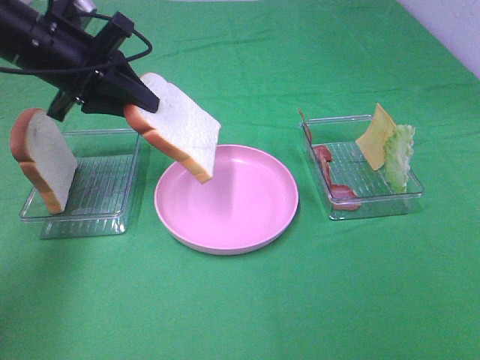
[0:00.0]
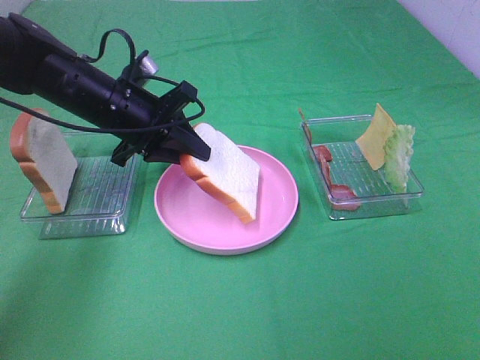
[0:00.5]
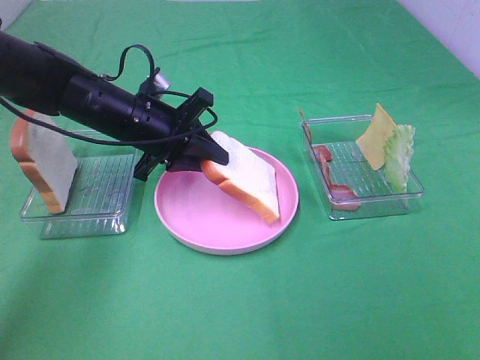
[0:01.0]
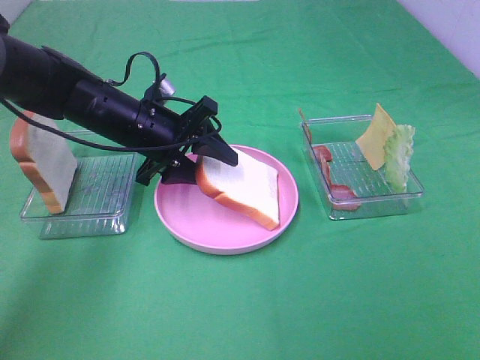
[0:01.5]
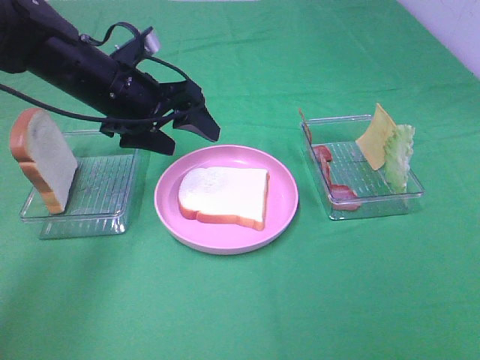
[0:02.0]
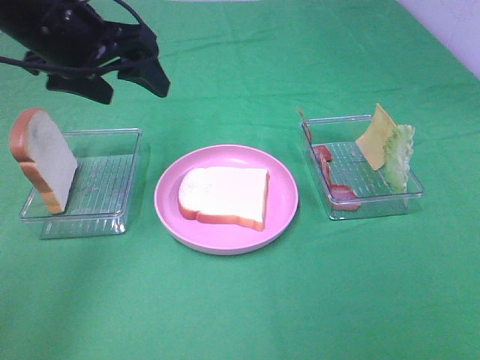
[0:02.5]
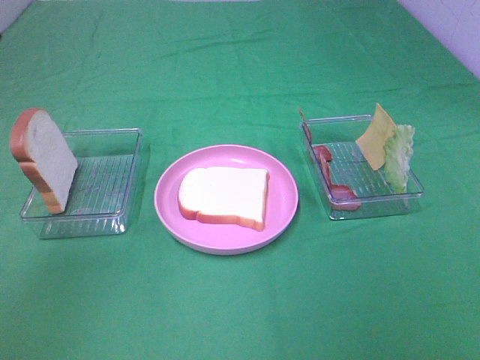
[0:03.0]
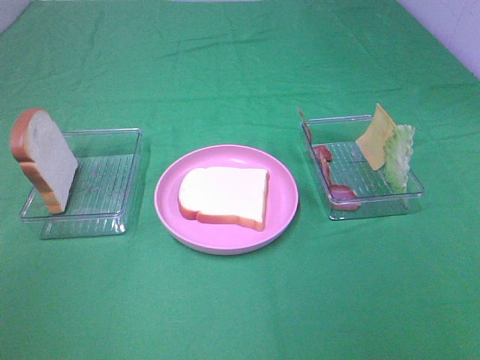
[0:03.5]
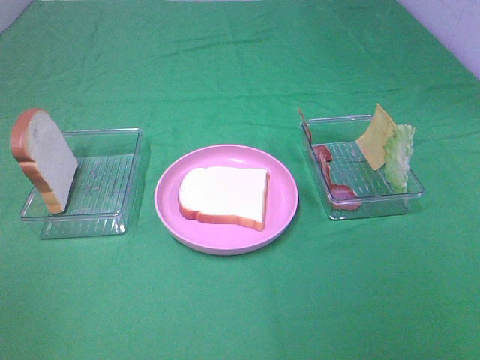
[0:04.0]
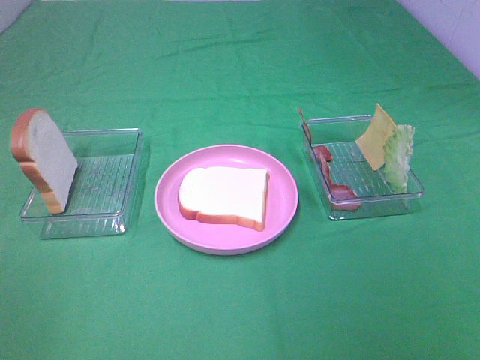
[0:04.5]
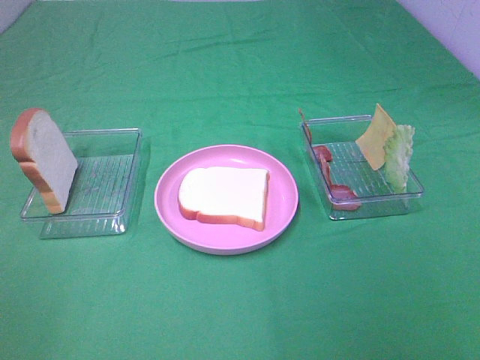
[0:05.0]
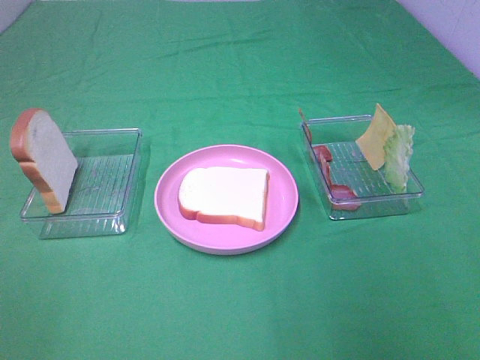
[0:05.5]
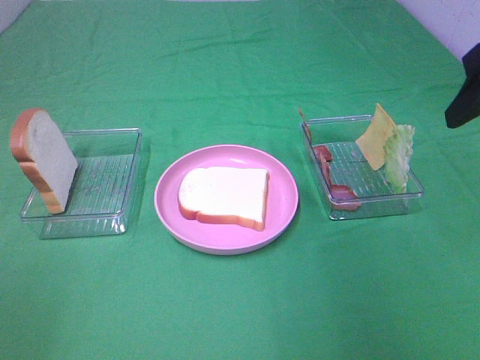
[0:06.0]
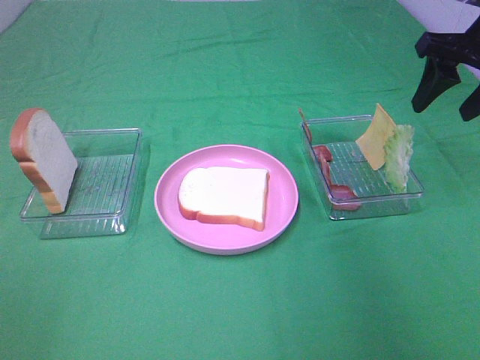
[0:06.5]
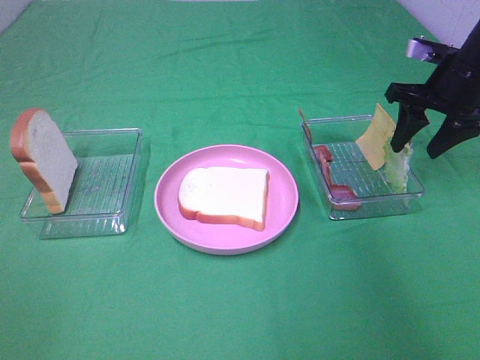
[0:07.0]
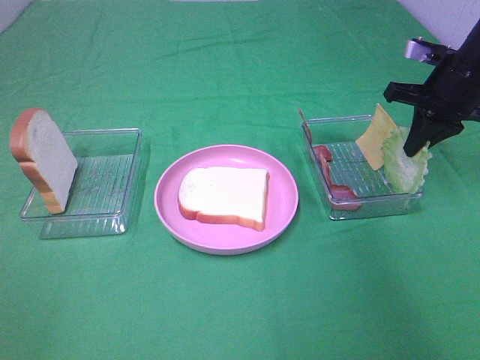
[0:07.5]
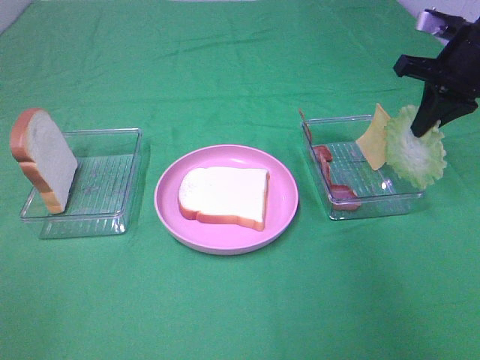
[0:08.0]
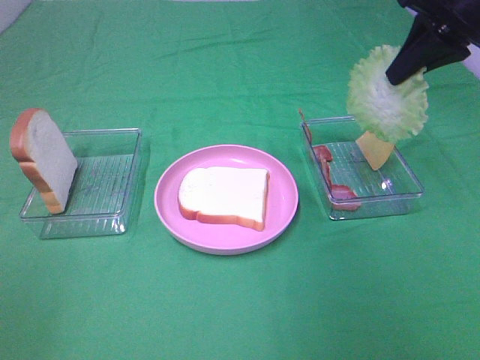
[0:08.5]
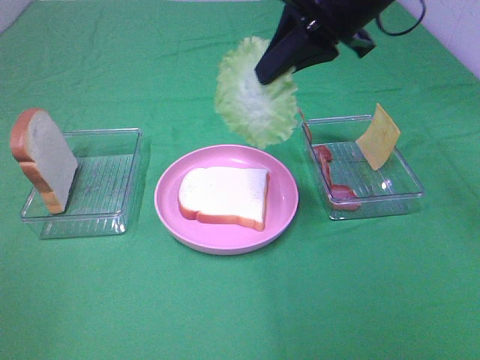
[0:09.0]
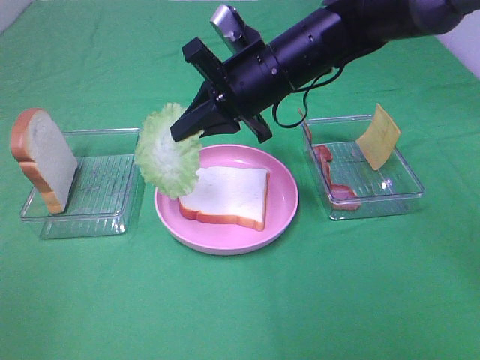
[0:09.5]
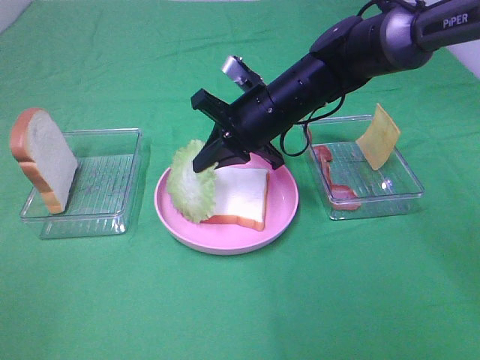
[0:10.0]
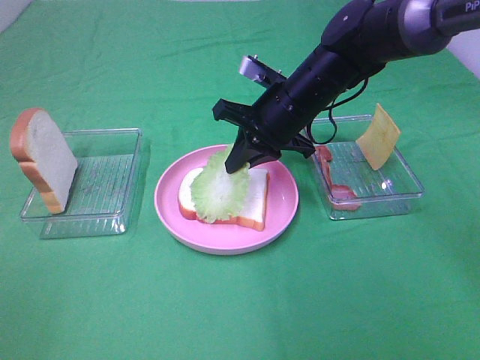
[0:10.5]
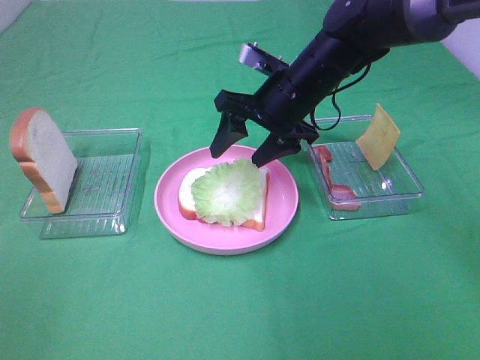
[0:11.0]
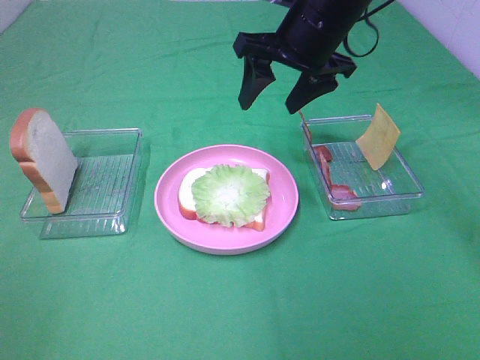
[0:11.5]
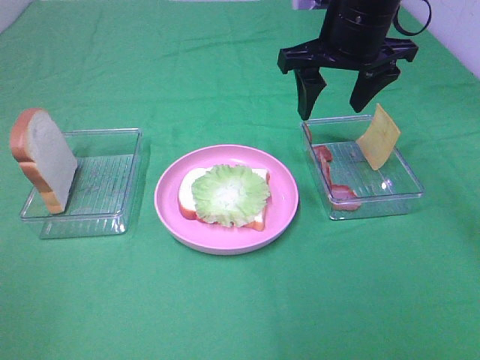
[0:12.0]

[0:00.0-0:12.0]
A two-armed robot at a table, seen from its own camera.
Task of the whole recording: Make sandwiches.
Step, 0.0 to 2.0 s: Left hand:place the bread slice on the plate.
Step, 2.5 to 7.5 s: Right hand:grab the lettuce slice.
Step, 8.0 to 11.0 s: Right hand:place the lettuce slice on the bread slice.
0.0 to 2.0 s: The left gripper heads to the right, covering approximately 5 cm, and opens.
2.0 to 4.0 s: The left gripper goes some 40 cm backward and to the left.
4.0 to 6.0 s: The right gripper is displaced forward by approximately 30 cm.
6.0 to 8.0 s: The right gripper moves forward and downward, approximately 15 cm, and closes.
8.0 to 10.0 s: The right gripper goes about 25 cm to the left and downward.
10.0 to 12.0 s: The right gripper heads upward and to the right, covering about 15 cm, and opens its fingers.

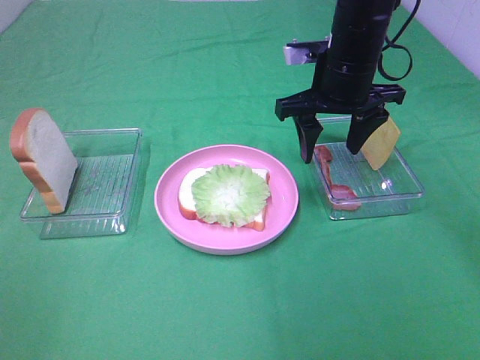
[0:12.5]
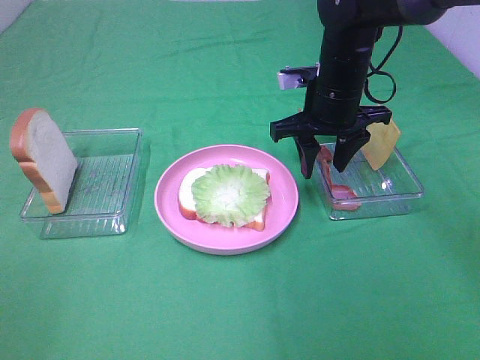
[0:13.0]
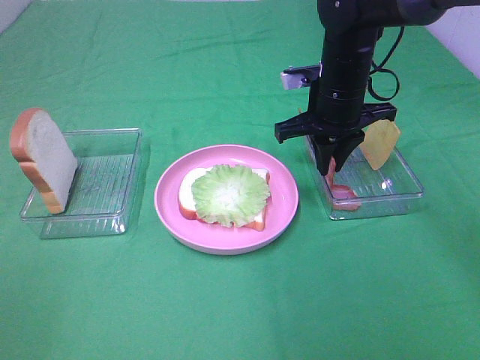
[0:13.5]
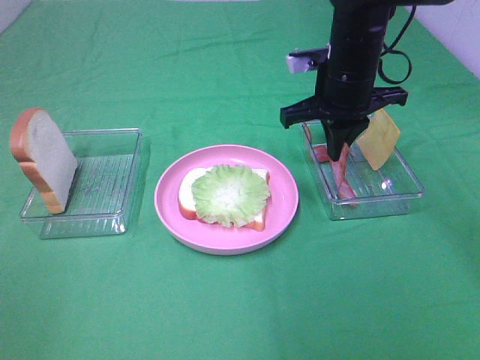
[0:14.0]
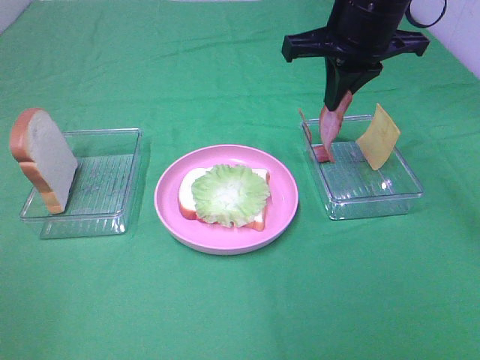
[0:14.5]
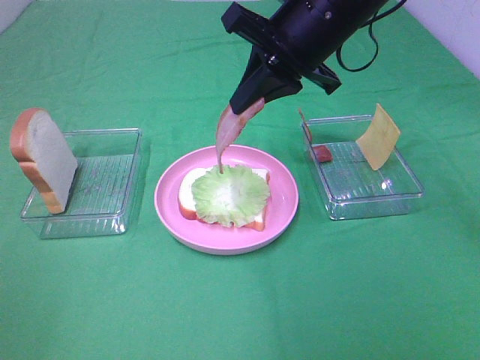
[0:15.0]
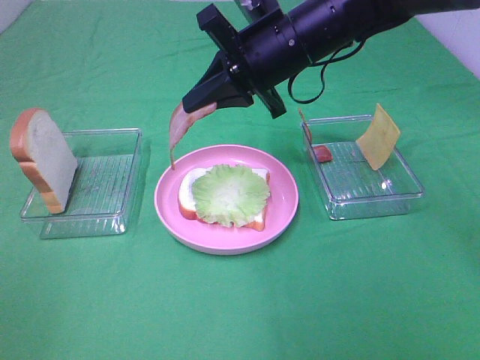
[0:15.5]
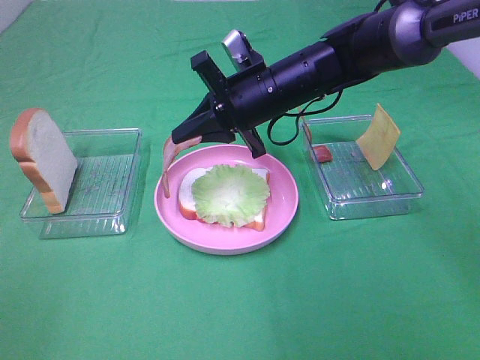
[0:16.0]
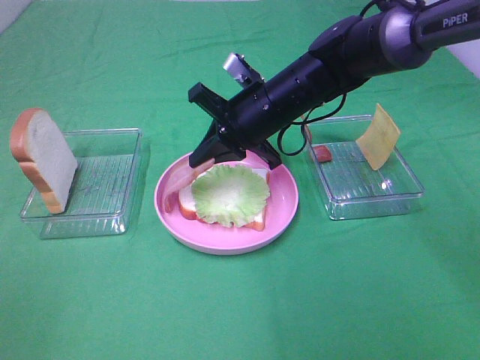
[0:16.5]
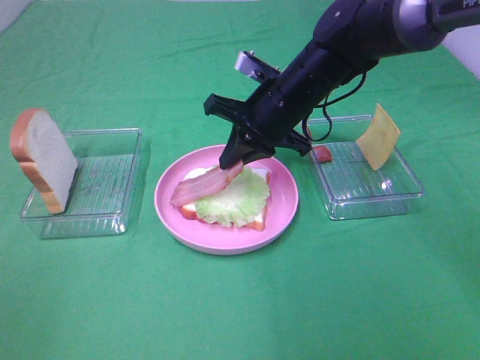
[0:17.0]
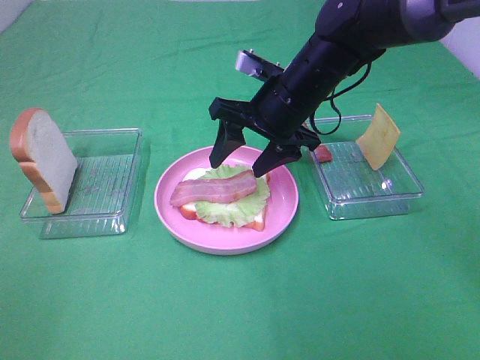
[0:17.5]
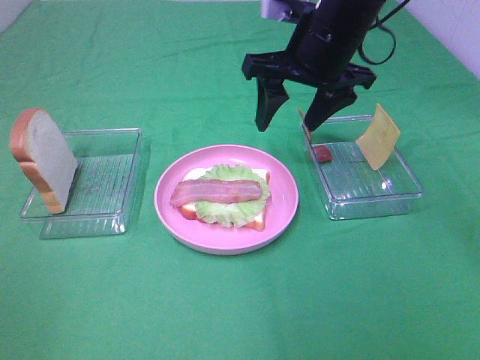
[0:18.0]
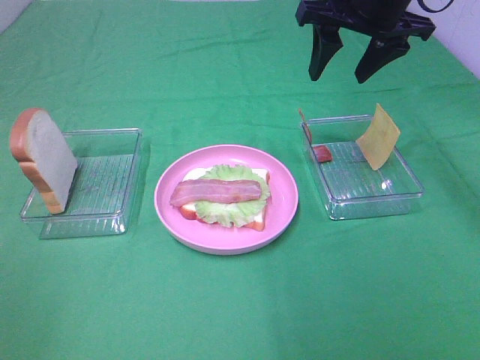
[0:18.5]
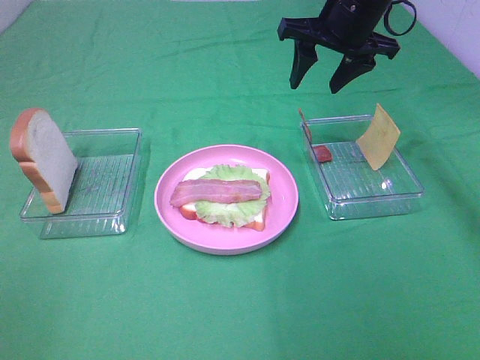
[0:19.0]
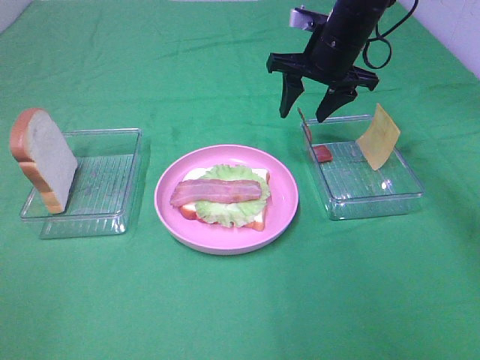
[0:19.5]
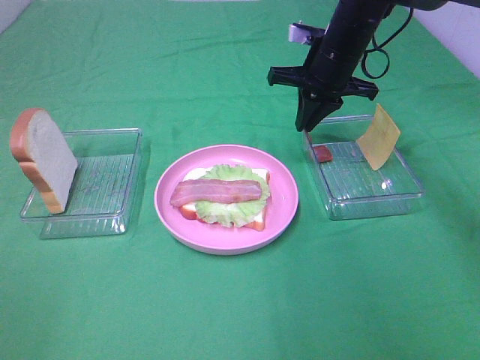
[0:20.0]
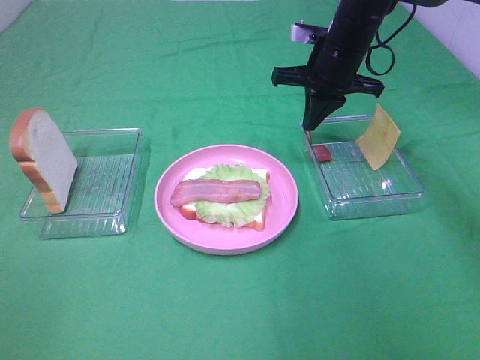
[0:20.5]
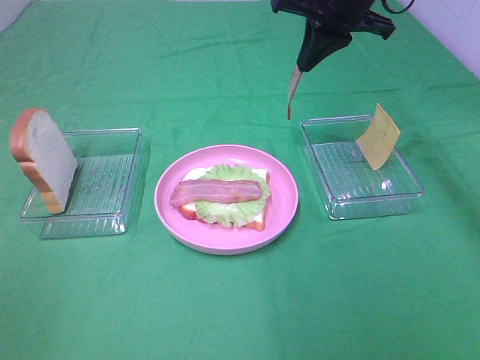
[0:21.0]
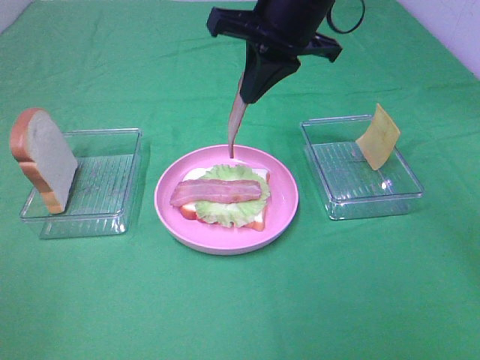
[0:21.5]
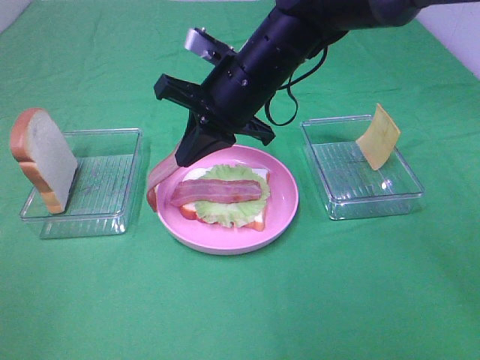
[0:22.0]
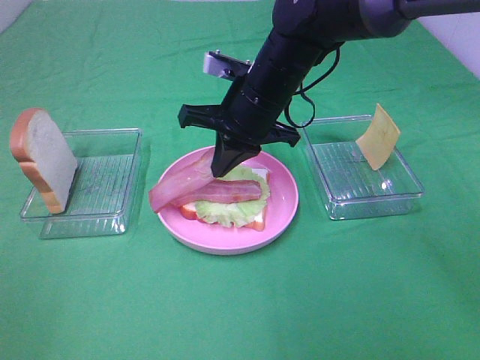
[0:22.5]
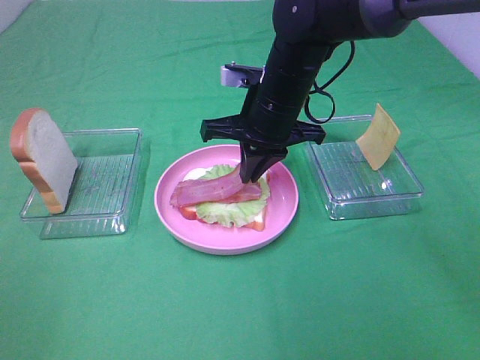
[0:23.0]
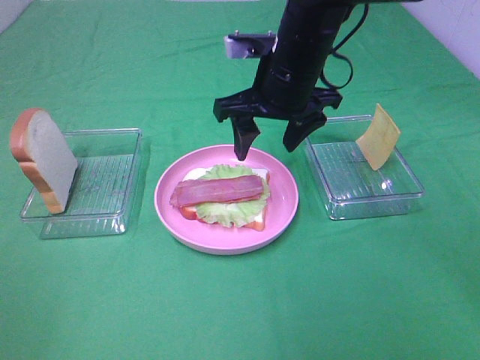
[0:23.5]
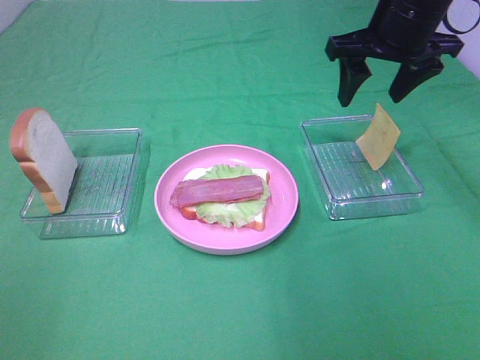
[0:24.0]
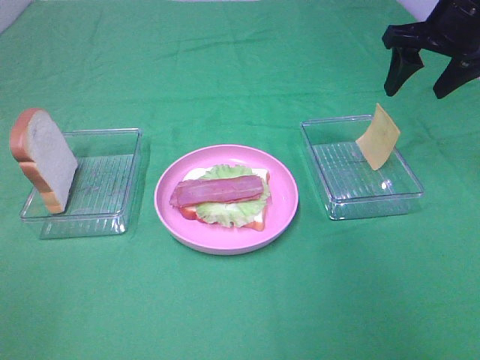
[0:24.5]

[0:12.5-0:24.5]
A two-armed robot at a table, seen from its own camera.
Task of the whole recording: Make sandwiches.
Step, 14.0 to 17.5 s: Right hand:place bacon on lettuce slice.
Step, 18.0 to 20.5 s: Right hand:grab the bacon.
Step, 21.0 to 23.0 s: Right hand:place bacon on bacon.
12.5 to 14.5 s: The right gripper heads upward, covering approximately 10 cm, and closes.
14.5 to 16.5 s: The right gripper heads downward and to the left, covering about 15 cm.
16.5 to 18.5 s: The right gripper moves upward and to the right, about 20 cm, and opens its fingers.
18.5 to 20.5 s: The right gripper travels downward and forward by some 10 cm, and closes its fingers.
20.5 to 22.5 s: The right gripper shifts roughly 15 cm to the left and backward.
22.5 to 24.5 s: The right gripper shifts about 25 cm to the right, and opens up.

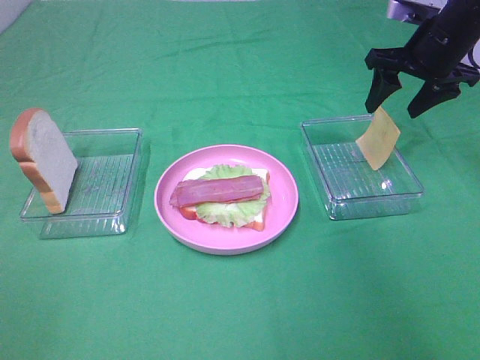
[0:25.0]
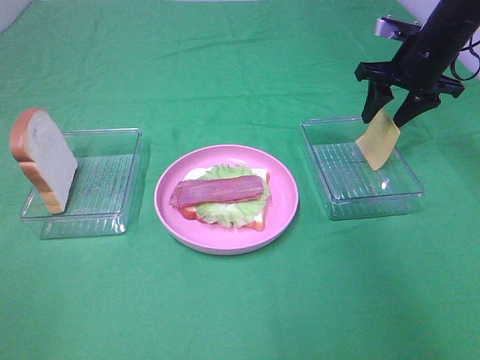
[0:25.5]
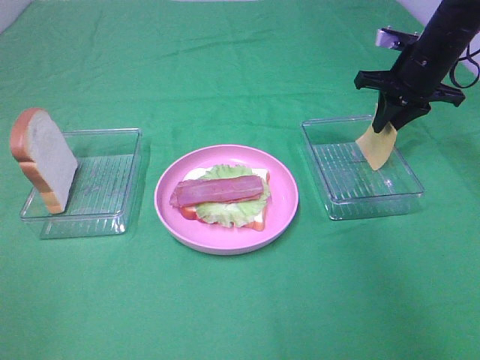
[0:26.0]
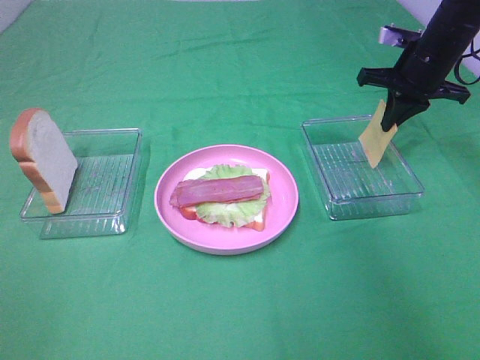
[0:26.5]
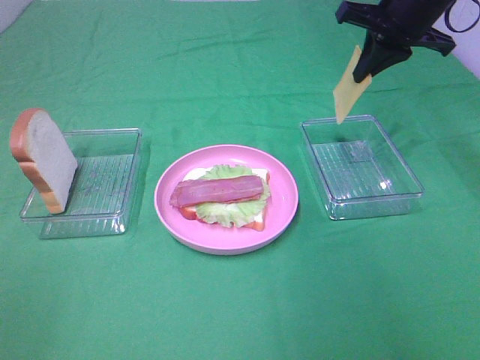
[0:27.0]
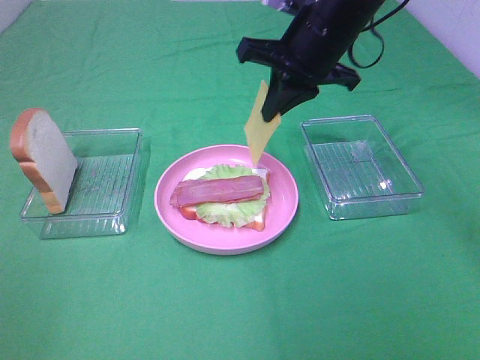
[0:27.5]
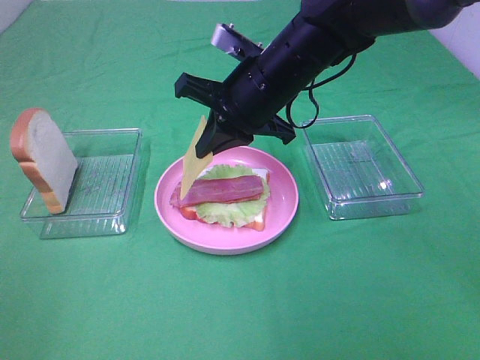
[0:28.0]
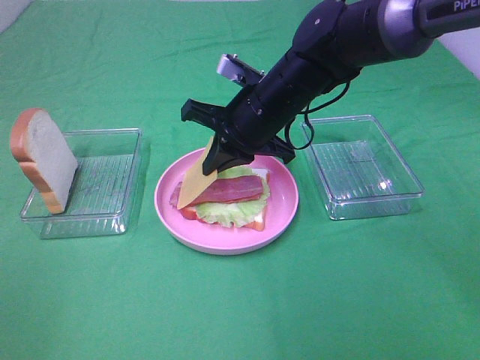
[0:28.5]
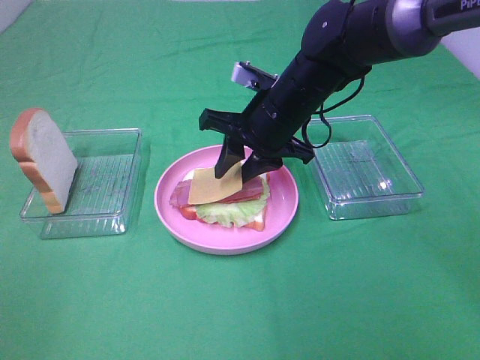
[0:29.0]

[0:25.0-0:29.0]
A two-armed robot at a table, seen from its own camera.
Task of the whole recording: Make sandwiches.
25.0 to 27.0 s: The right gripper is displaced upward and to the left by roughly 10 cm, and closes up.
27.0 to 29.0 s: The right gripper is displaced to the left, downward and backward by some 20 cm, and opens.
